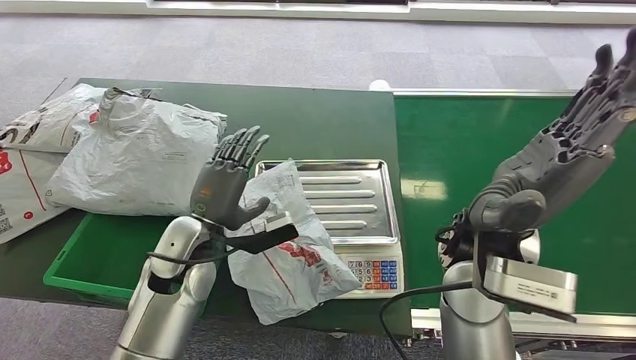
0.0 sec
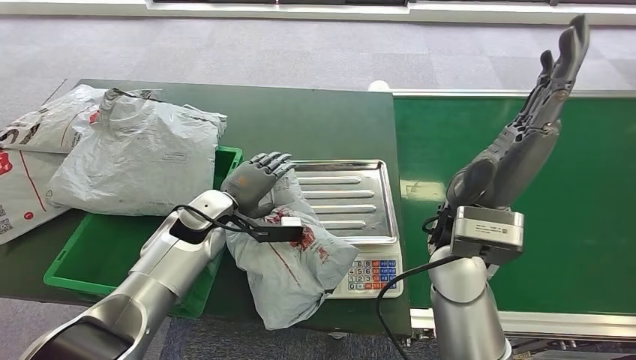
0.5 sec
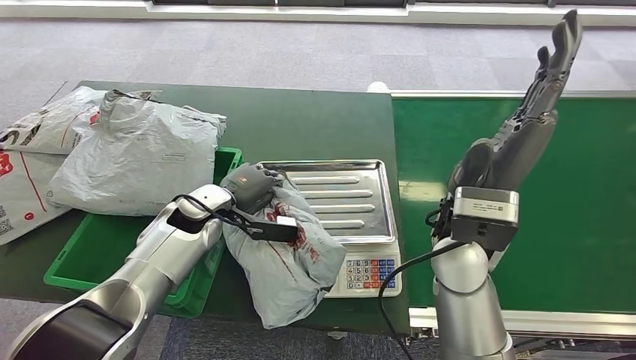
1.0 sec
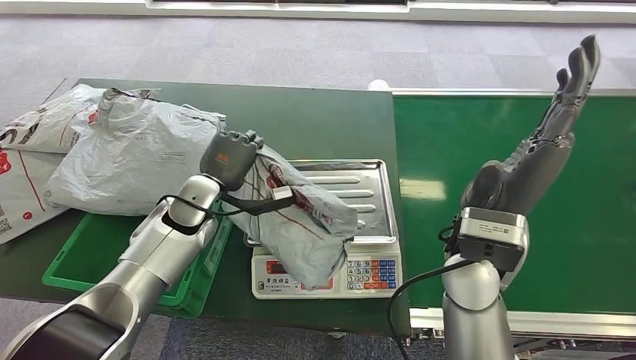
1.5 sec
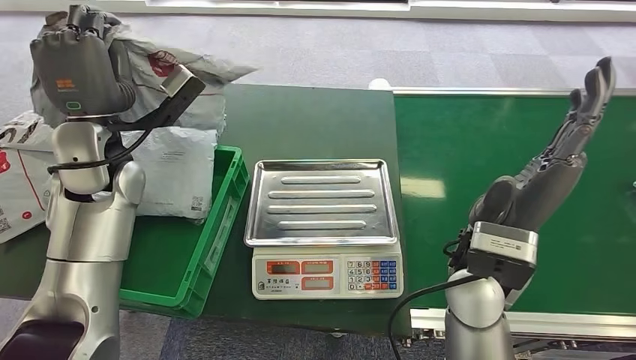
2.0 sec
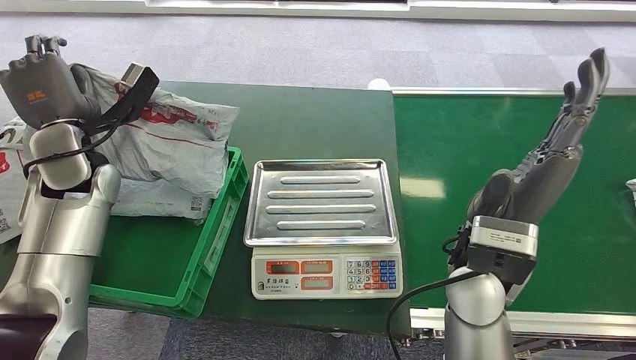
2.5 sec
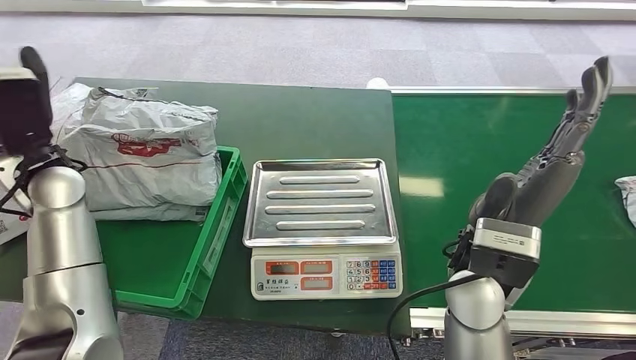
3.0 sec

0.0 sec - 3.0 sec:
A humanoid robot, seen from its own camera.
Step, 0.0 sec - 2.0 sec: Pick up the package from the inbound machine.
Step, 2.5 sec - 3.0 sec: Place the package into the parcel locker.
